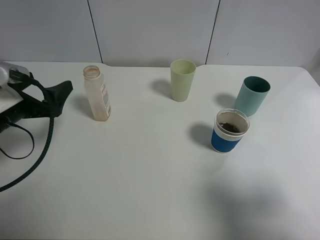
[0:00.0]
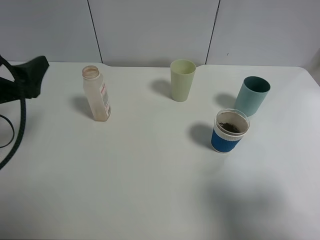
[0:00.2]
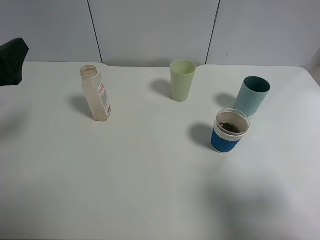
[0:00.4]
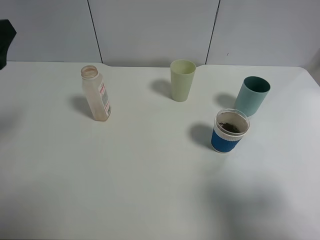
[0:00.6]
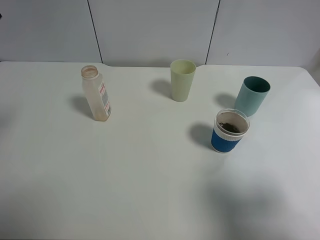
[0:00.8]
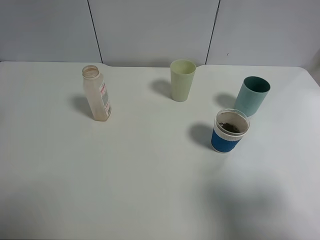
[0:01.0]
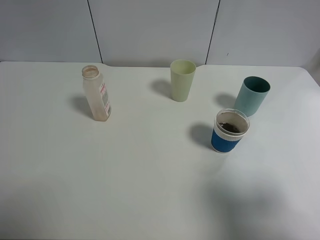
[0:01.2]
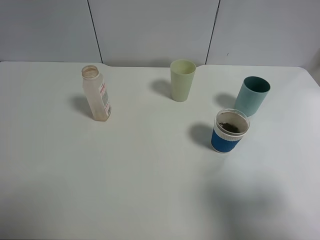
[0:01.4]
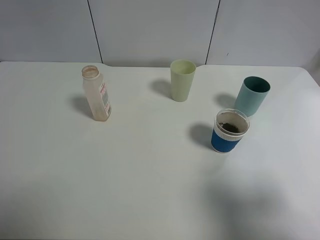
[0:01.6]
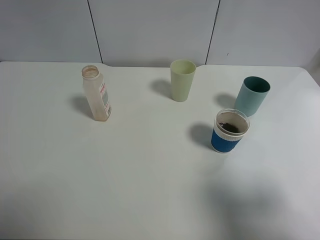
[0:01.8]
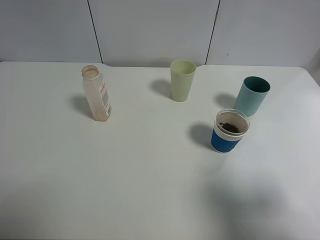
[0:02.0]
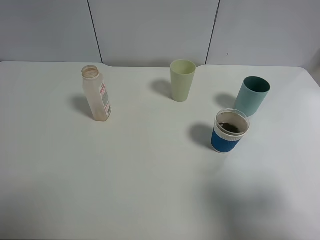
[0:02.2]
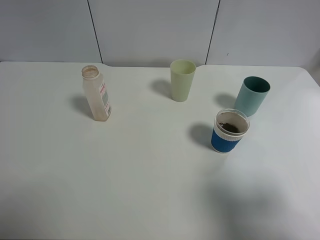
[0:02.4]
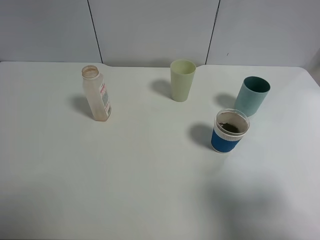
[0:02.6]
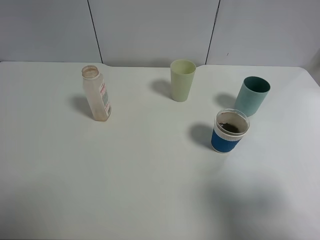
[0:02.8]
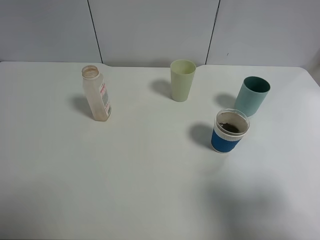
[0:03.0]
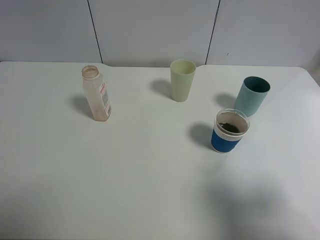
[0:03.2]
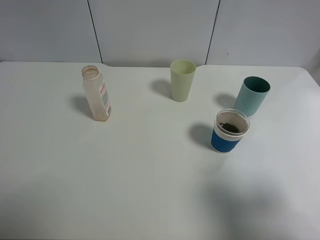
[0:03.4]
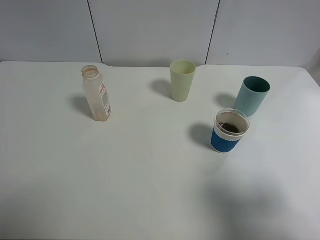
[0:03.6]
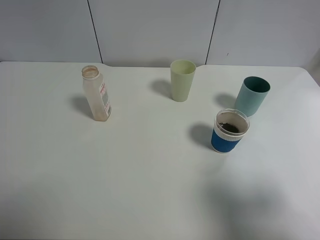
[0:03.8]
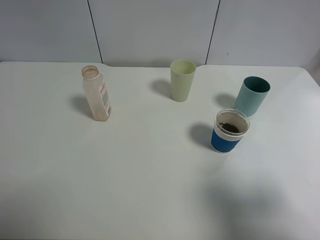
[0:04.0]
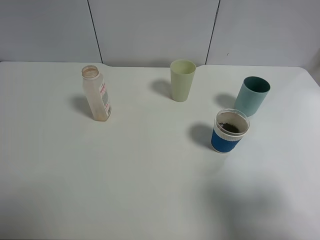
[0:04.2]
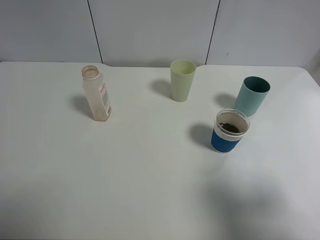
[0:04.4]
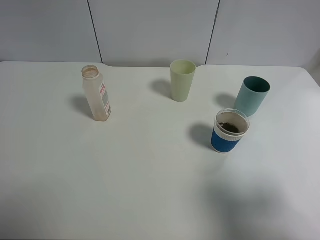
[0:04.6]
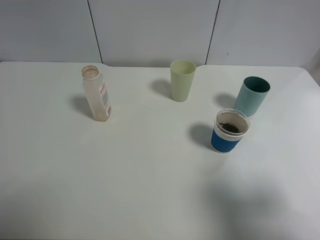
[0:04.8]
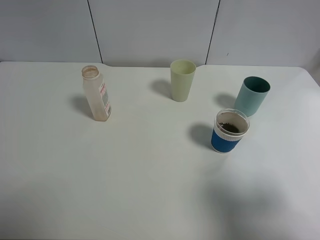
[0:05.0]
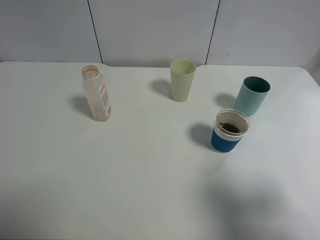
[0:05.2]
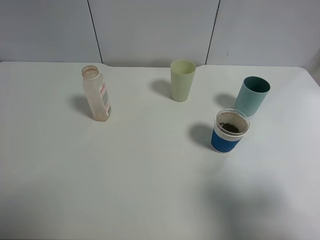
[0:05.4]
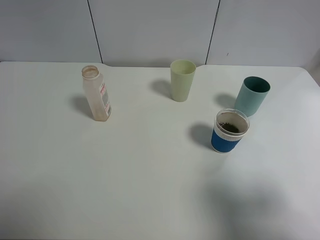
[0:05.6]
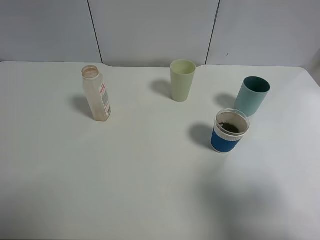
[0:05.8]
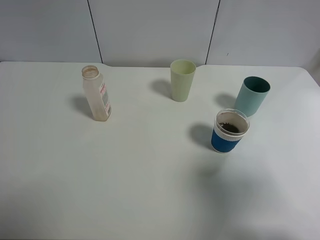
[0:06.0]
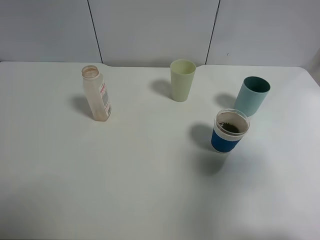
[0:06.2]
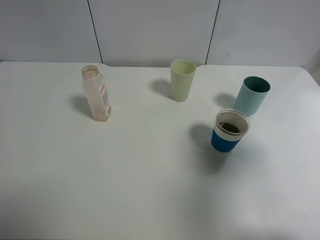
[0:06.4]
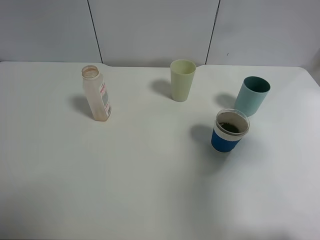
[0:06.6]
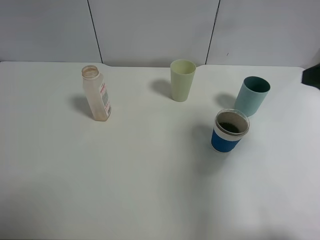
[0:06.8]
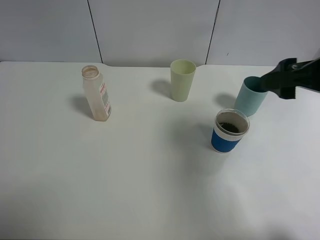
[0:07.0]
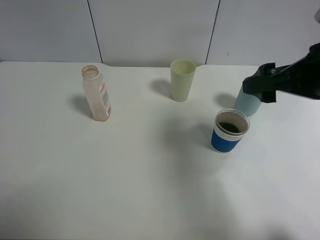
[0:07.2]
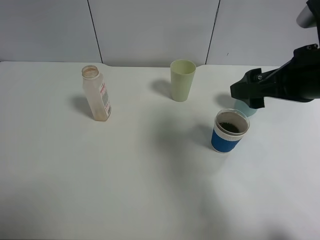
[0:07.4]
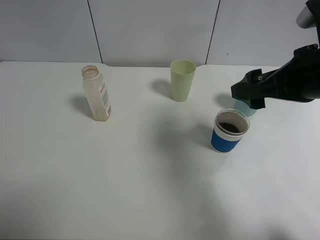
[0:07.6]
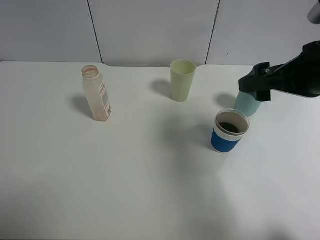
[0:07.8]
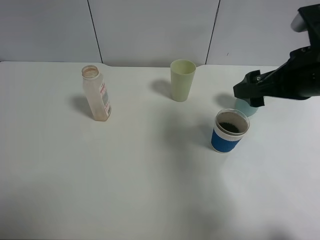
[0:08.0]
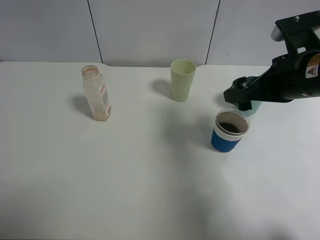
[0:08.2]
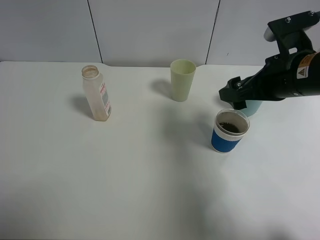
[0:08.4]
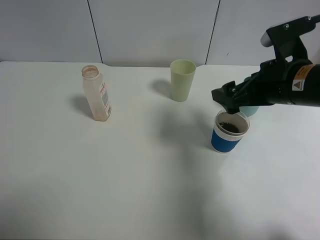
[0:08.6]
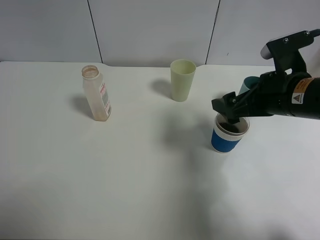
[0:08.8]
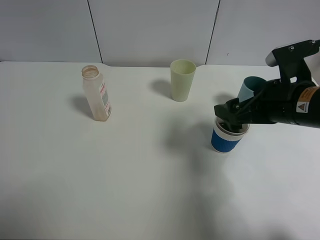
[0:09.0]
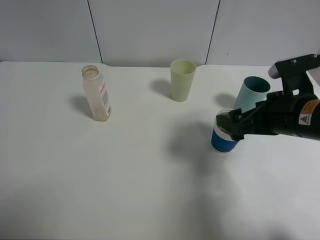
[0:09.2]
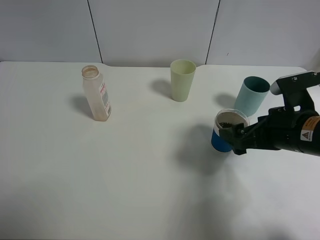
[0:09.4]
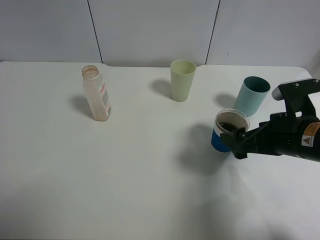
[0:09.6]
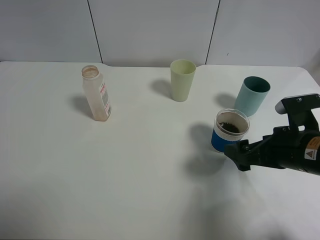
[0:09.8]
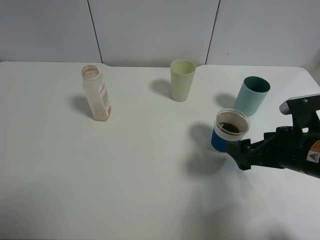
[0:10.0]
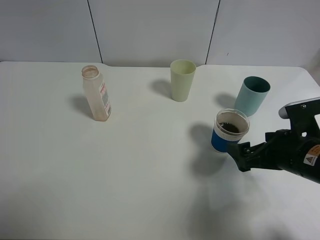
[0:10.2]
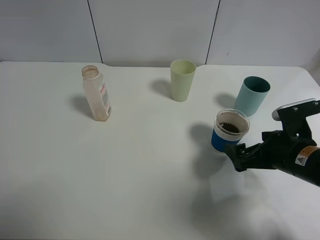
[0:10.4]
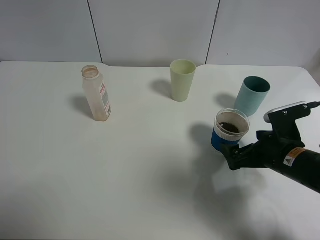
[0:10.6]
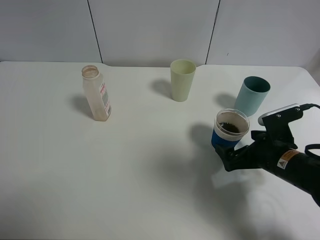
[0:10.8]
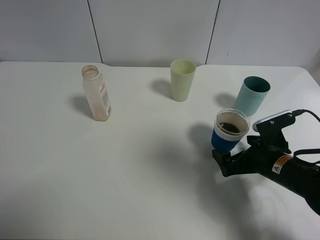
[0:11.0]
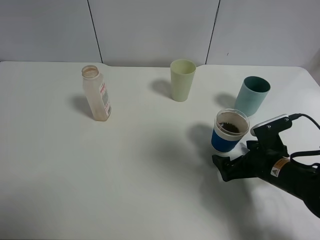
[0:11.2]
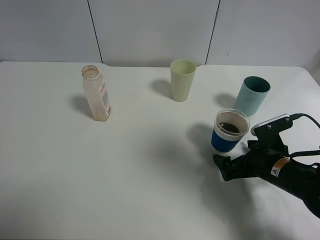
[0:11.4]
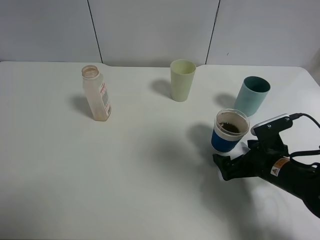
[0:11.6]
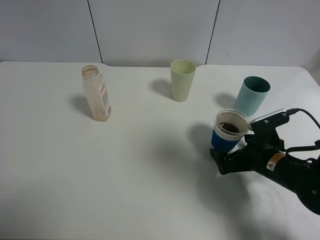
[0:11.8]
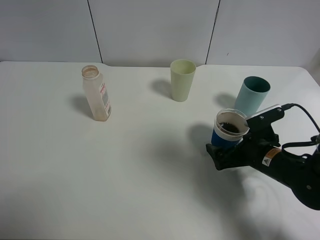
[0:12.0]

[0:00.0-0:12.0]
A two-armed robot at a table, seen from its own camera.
Task of the whole recording: use a clamp to hold the bottle of the drink, pour the beverage into a random cup, then clamp the cup containing the drink and pour the drink into another random cup.
0:00.0 to 0:01.6: The left gripper travels upward and backward by roughly 25 cm.
0:03.0 to 0:04.4: The two grippers keep their place.
0:04.4 to 0:06.0: There are only small adjustments of the grippers.
0:06.0 to 0:07.6: The right gripper heads forward and to the left, covering approximately 20 cm.
0:07.6 to 0:09.0: The right gripper travels downward by approximately 5 cm.
0:09.0 to 0:10.4: The right gripper is displaced downward by approximately 10 cm.
0:10.4 to 0:12.0: The right gripper goes some 5 cm downward.

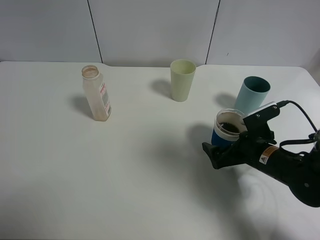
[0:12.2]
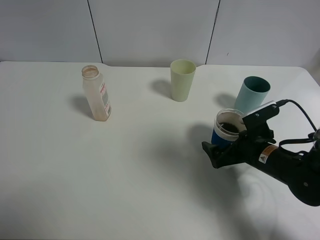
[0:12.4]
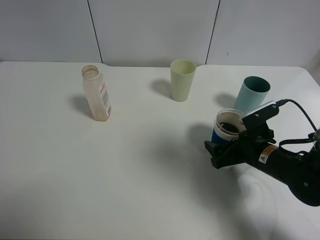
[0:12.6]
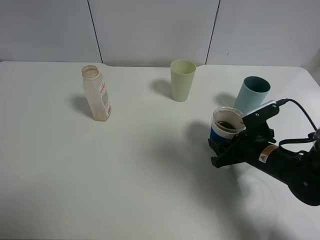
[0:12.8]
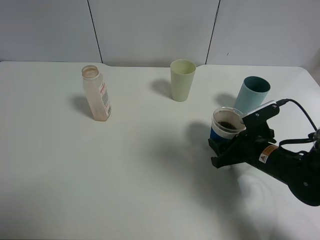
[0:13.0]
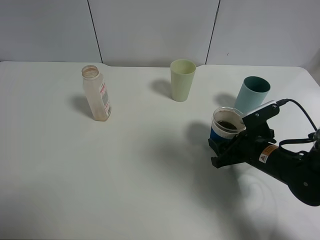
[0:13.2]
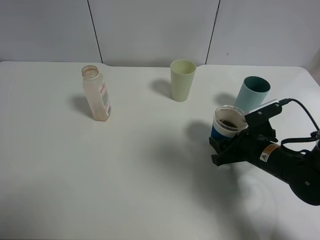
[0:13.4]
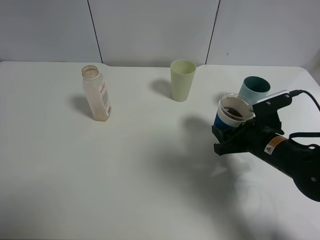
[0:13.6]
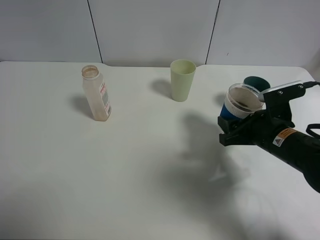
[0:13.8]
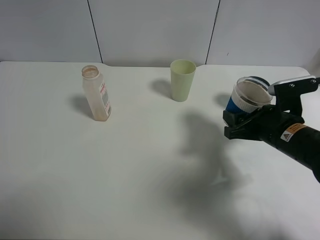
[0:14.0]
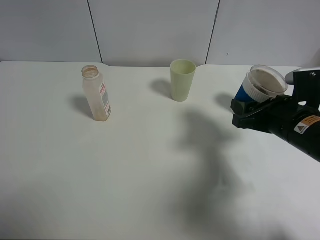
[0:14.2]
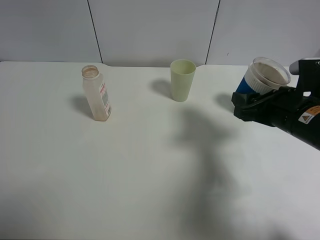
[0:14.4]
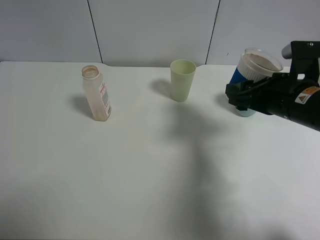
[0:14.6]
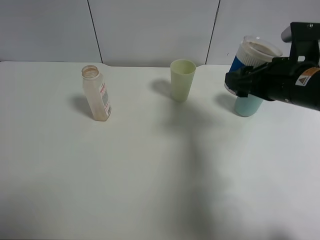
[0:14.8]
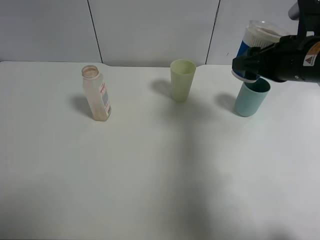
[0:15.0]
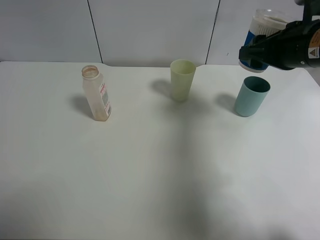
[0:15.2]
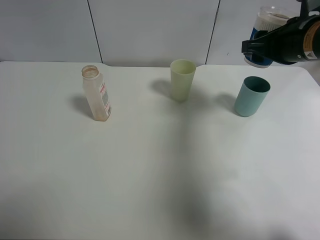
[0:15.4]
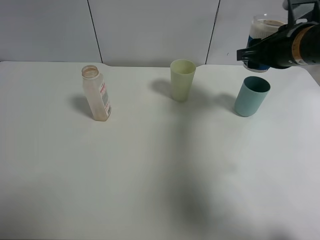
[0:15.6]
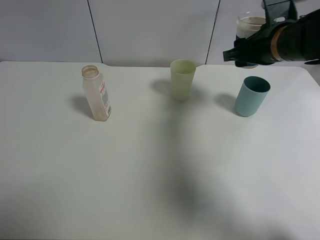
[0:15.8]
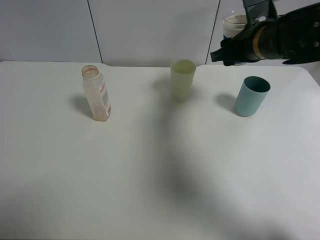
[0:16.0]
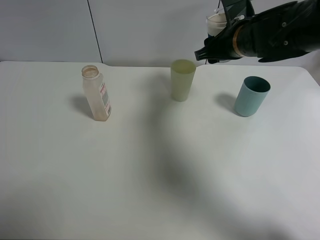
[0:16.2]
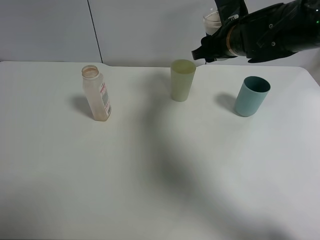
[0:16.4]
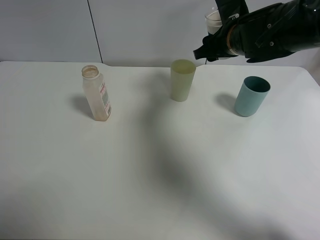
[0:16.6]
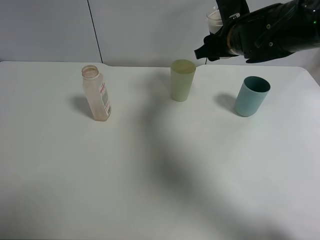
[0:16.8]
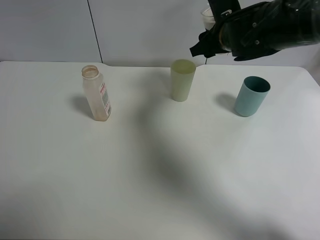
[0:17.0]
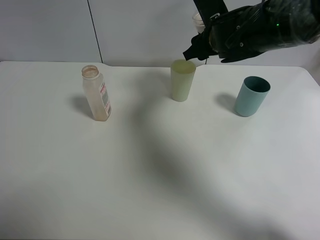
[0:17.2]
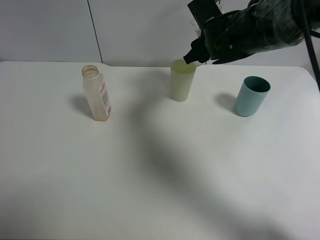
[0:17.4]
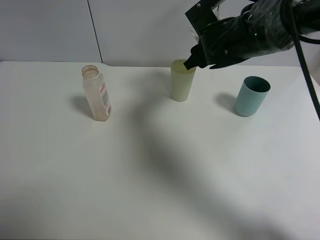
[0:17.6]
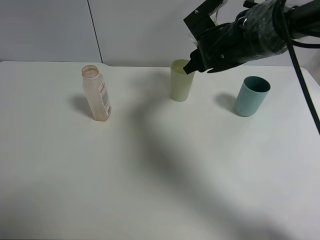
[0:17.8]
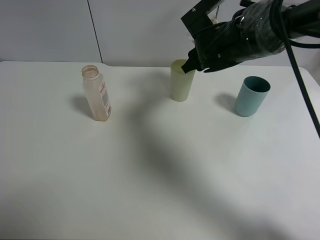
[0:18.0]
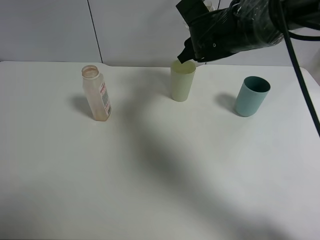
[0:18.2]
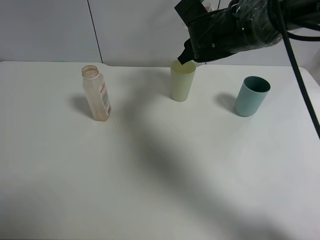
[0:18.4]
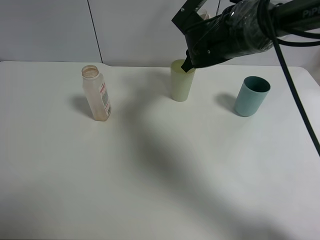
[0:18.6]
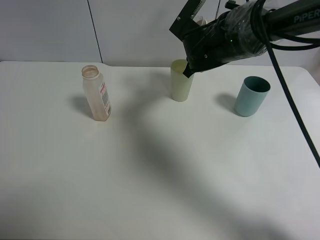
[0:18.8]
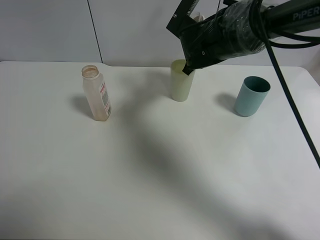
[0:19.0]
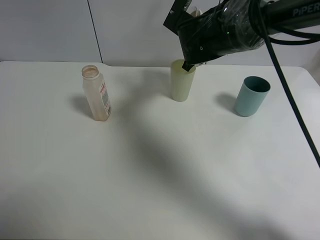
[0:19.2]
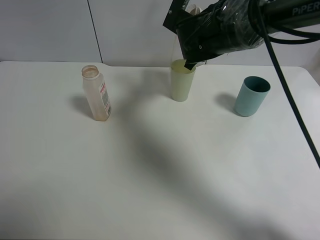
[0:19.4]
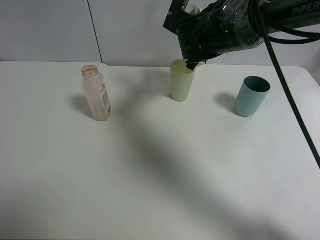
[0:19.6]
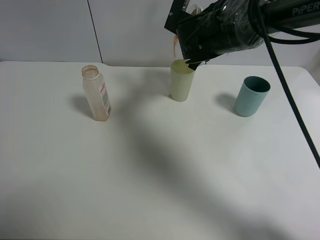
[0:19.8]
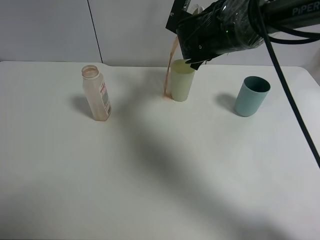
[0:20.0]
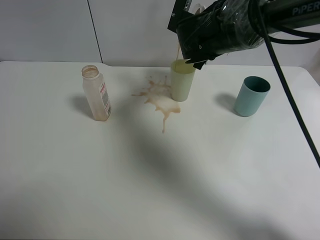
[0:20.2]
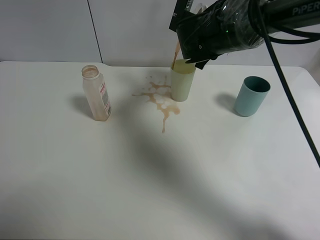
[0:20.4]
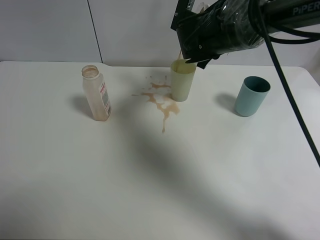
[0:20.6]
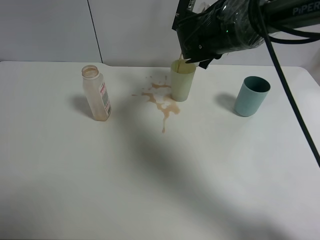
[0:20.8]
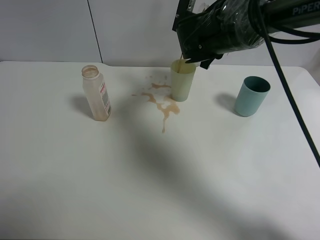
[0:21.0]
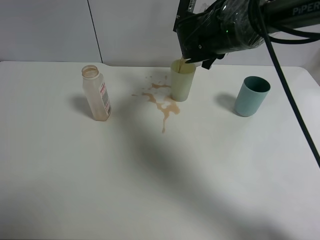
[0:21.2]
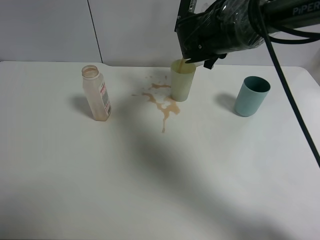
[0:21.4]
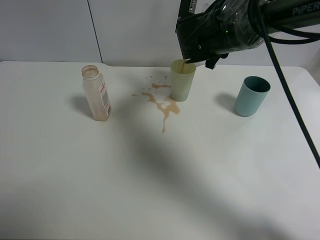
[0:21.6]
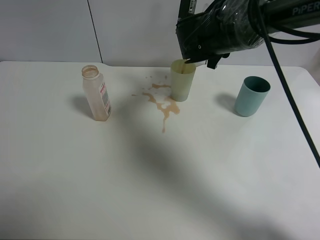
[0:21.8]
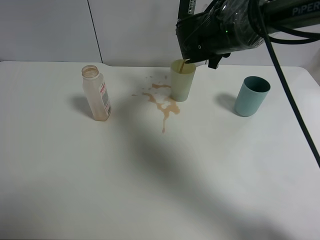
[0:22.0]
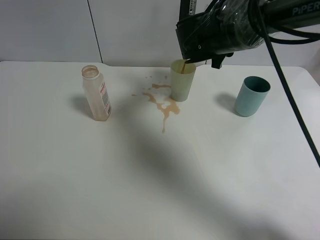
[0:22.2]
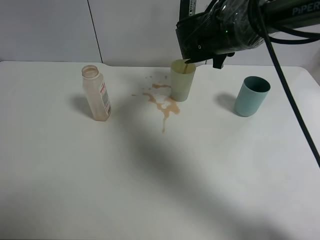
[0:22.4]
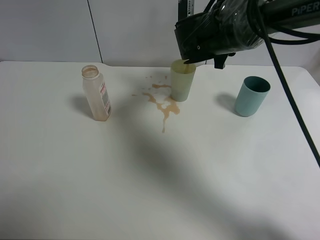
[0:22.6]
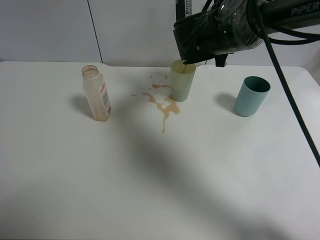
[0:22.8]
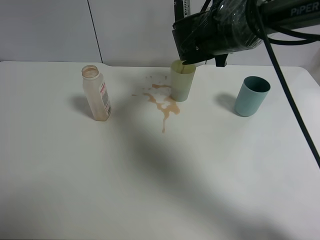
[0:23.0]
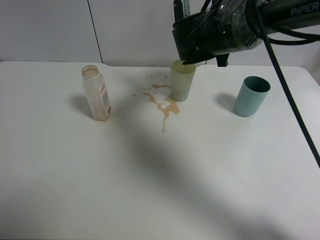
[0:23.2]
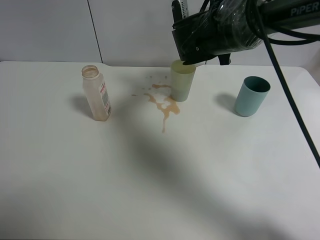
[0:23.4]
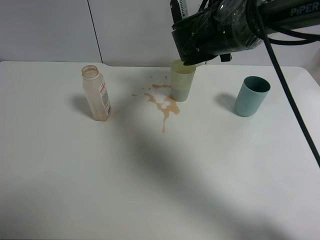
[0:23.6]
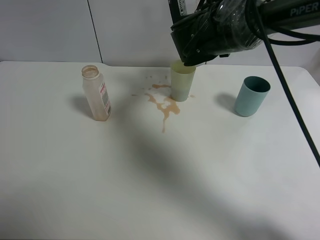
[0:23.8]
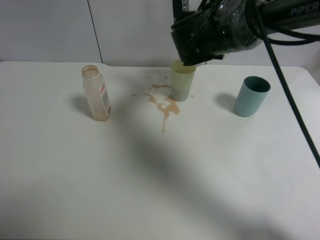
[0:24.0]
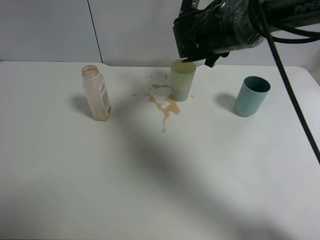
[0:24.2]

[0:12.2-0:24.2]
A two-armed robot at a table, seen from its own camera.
Task of the whole recording: use a clamp to hold the bottle of the drink, pour the beverage into a random cup, then clamp the cup containing the drink and pour the drink into another random cup.
Step, 0:14.0 to 0:24.0: Pour the drink into the green plastic cup with right gripper.
0:12.2 to 0:13.8: The right gripper is displaced upward by some 5 cm, and closes.
0:13.8 to 0:15.2: The right gripper goes approximately 15 cm upward and forward.
0:15.2 to 0:16.6: The right gripper is displaced to the left and forward by roughly 10 cm.
0:16.6 to 0:18.2: The right gripper is displaced to the left by approximately 5 cm.
0:19.8 to 0:21.2: The grippers stay close to where they were, moving slightly.
0:21.2 to 0:22.6: The grippers make only small movements.
